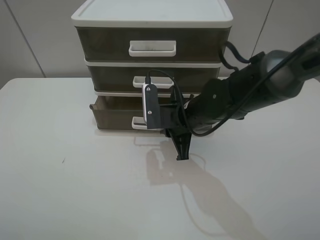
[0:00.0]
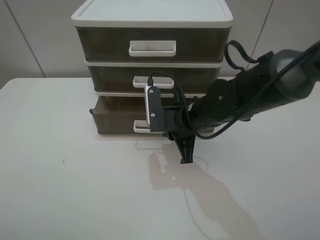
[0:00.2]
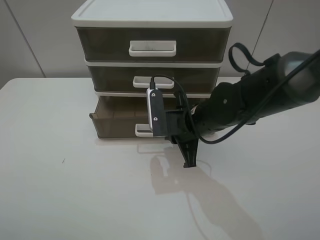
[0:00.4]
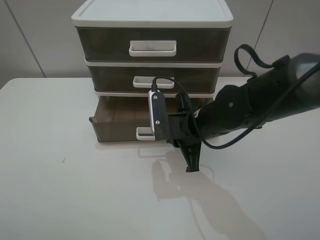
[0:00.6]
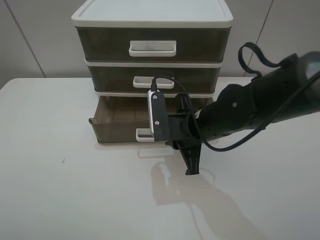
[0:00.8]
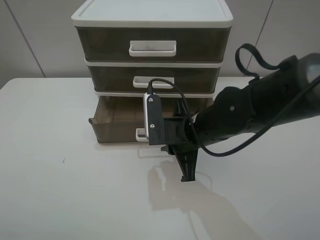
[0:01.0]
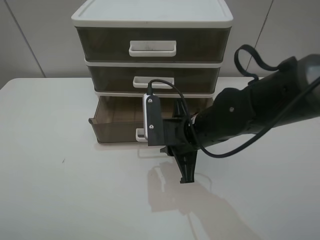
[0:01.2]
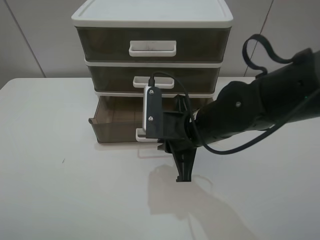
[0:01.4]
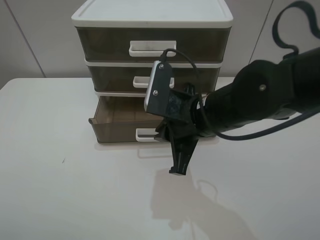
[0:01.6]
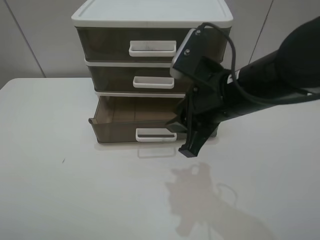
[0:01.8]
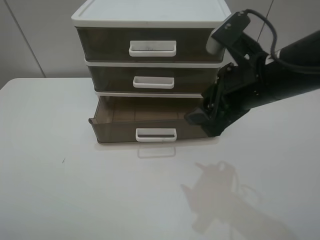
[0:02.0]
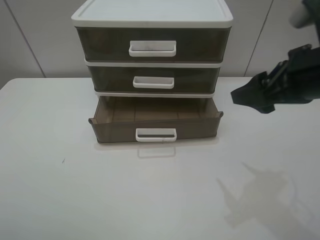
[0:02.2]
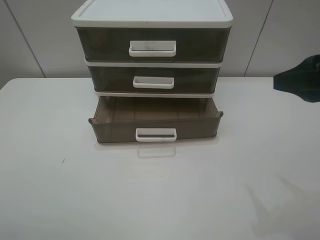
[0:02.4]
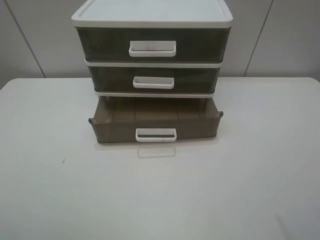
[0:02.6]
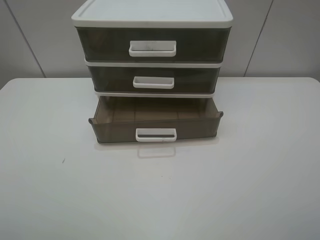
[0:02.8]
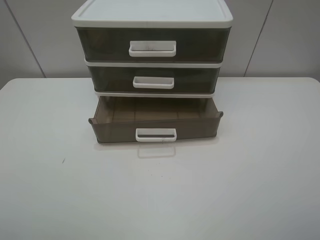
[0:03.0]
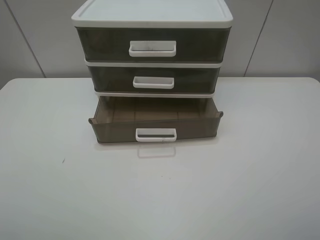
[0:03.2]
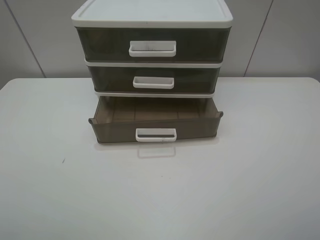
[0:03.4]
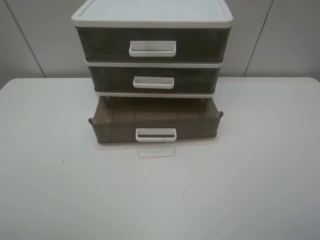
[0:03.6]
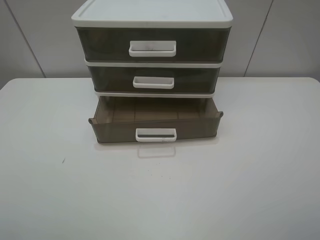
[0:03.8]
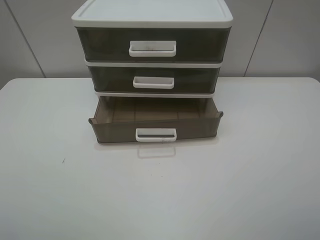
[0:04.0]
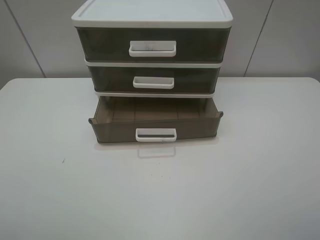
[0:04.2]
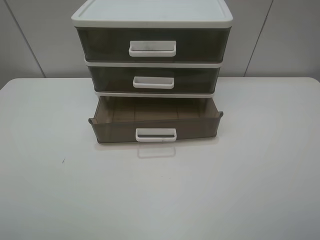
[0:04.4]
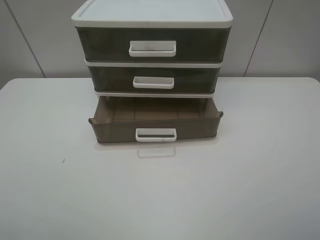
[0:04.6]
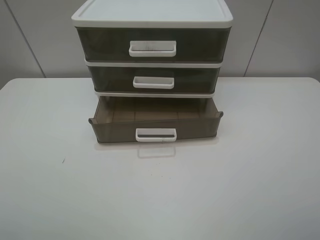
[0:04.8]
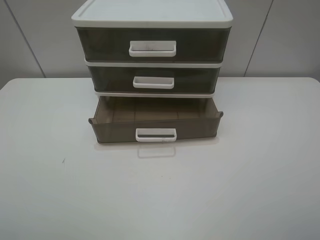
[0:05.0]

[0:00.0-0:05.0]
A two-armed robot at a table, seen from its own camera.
Task of the whole recording: open the bottom drawer.
0:00.0 to 0:01.6: The right gripper travels upward and backward by about 10 cm.
0:01.6 to 0:03.4: The right gripper heads backward, to the right and upward, covering some 35 cm, and opens its fingers.
